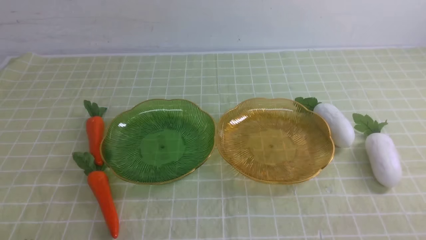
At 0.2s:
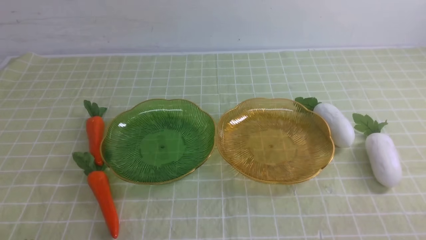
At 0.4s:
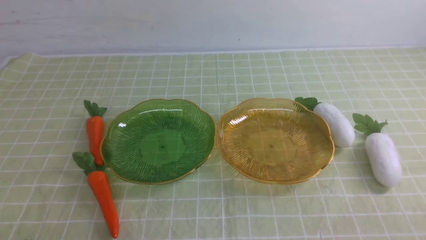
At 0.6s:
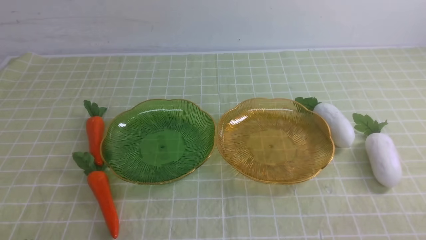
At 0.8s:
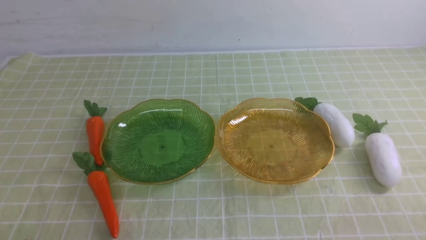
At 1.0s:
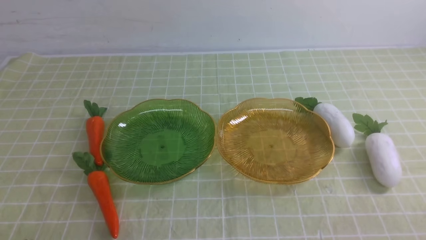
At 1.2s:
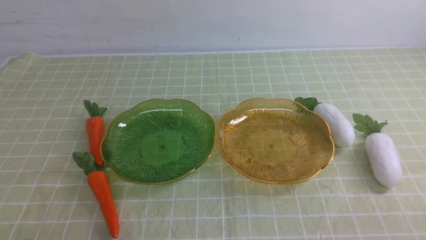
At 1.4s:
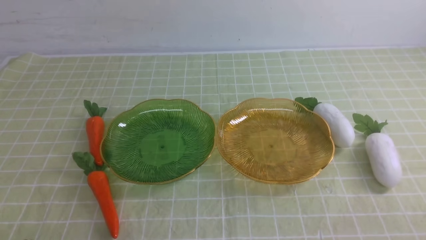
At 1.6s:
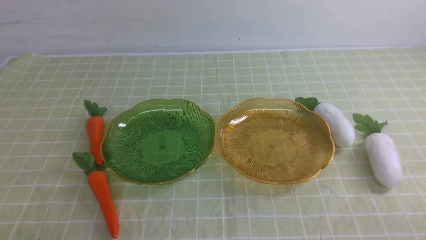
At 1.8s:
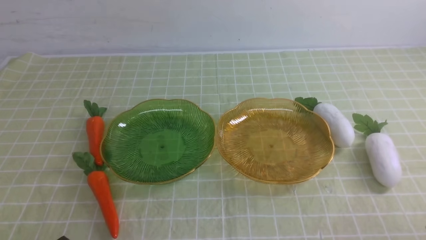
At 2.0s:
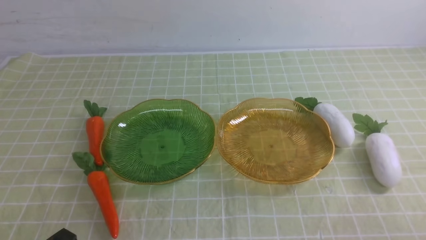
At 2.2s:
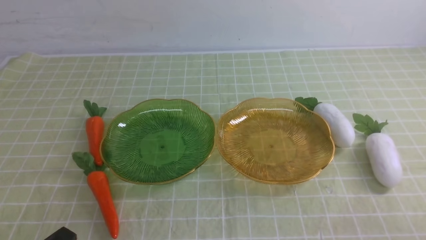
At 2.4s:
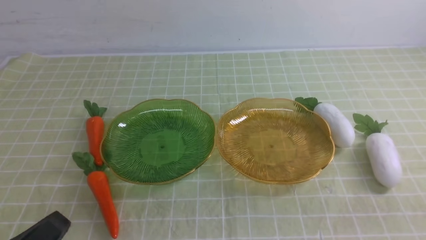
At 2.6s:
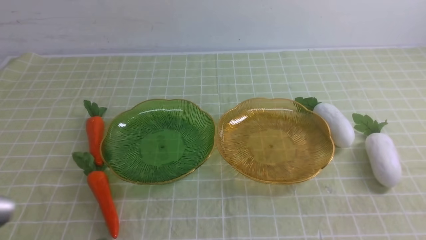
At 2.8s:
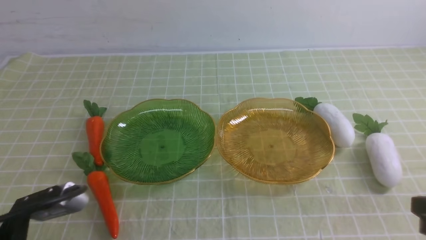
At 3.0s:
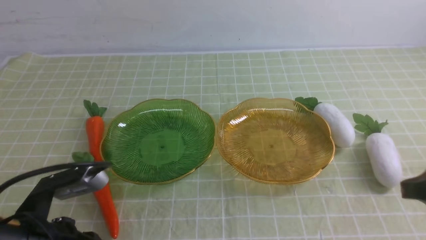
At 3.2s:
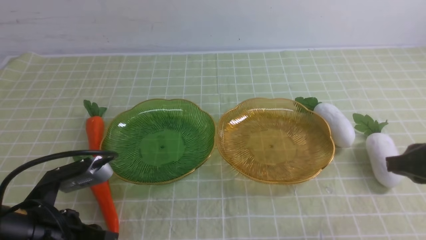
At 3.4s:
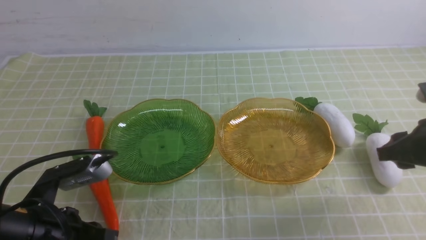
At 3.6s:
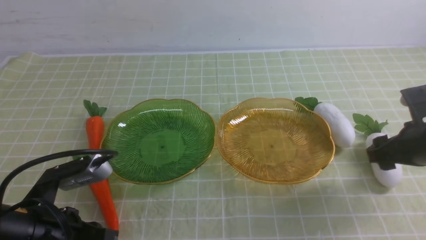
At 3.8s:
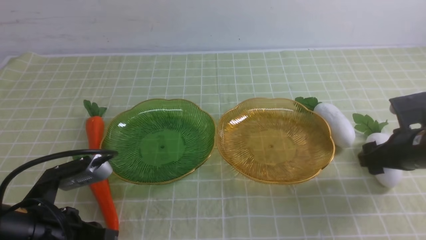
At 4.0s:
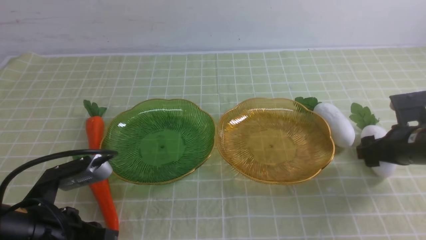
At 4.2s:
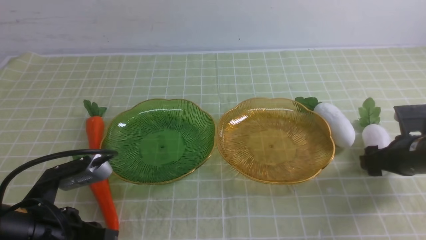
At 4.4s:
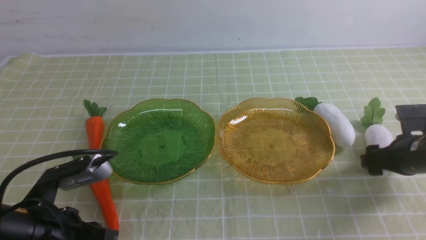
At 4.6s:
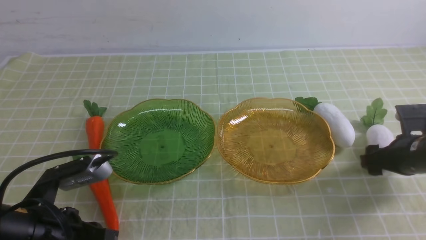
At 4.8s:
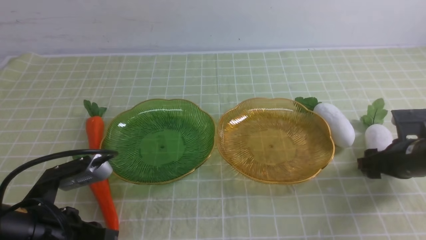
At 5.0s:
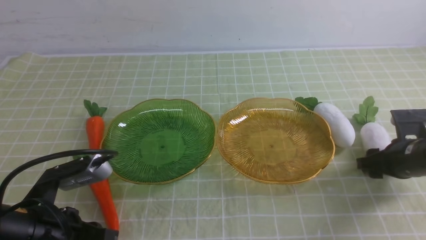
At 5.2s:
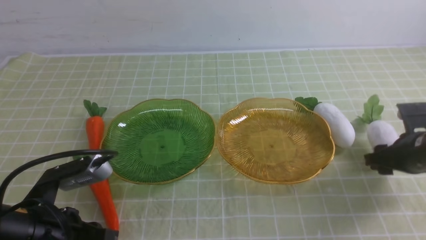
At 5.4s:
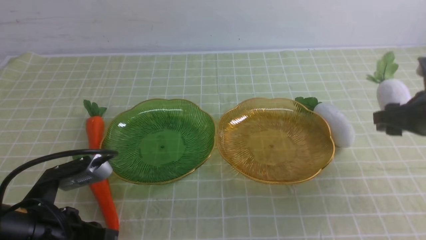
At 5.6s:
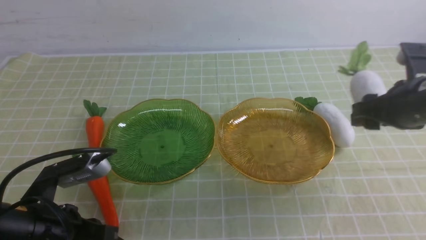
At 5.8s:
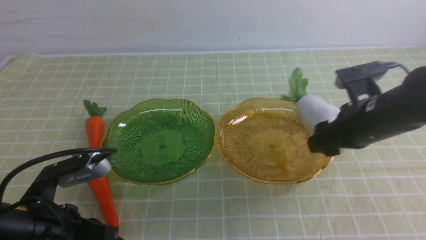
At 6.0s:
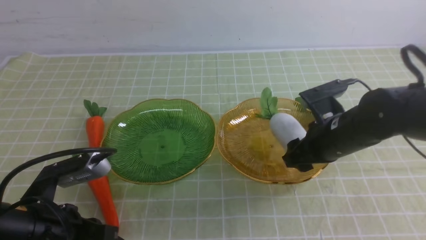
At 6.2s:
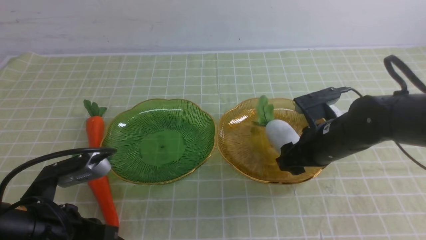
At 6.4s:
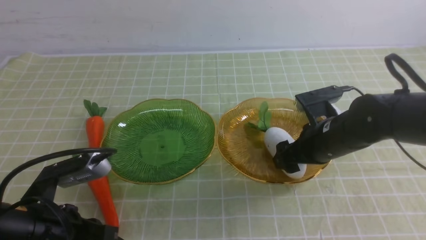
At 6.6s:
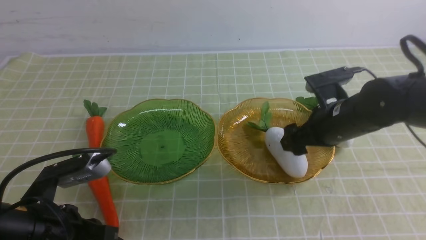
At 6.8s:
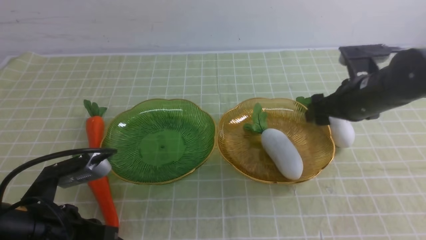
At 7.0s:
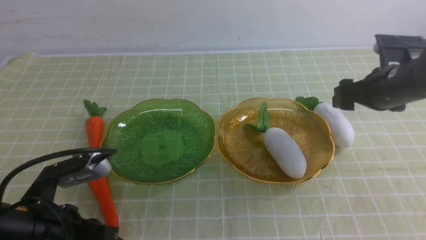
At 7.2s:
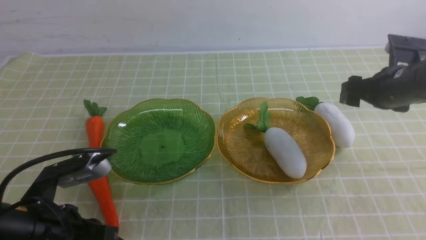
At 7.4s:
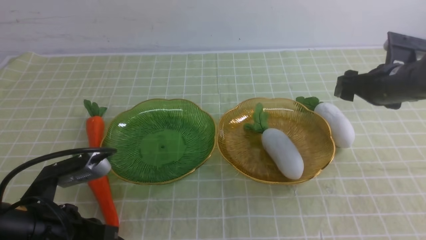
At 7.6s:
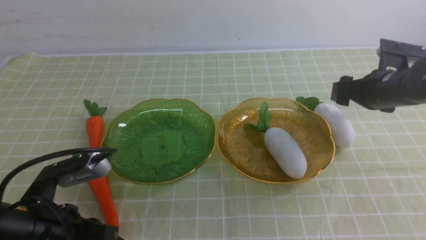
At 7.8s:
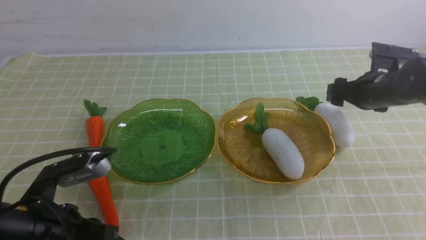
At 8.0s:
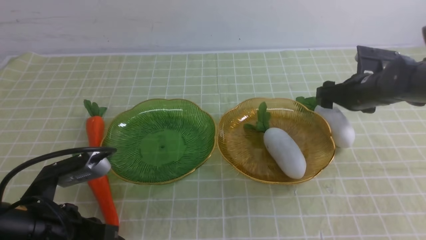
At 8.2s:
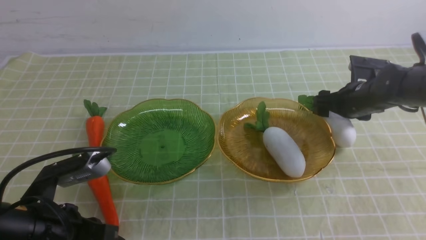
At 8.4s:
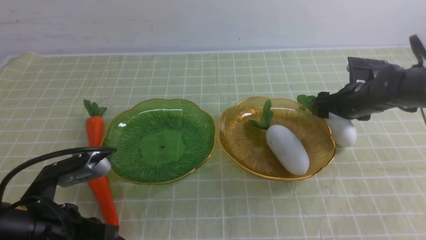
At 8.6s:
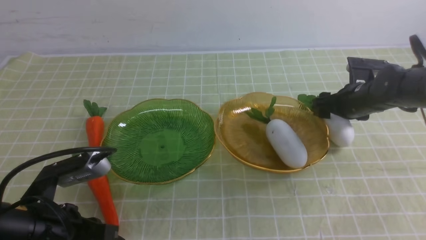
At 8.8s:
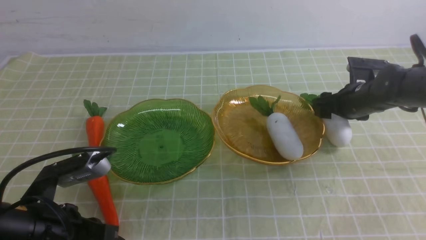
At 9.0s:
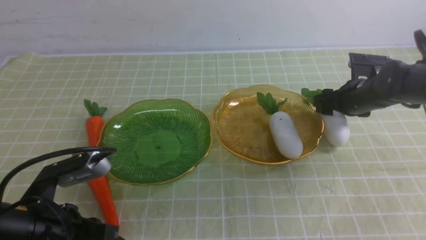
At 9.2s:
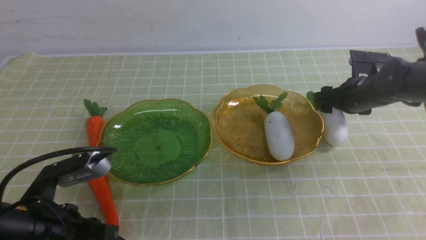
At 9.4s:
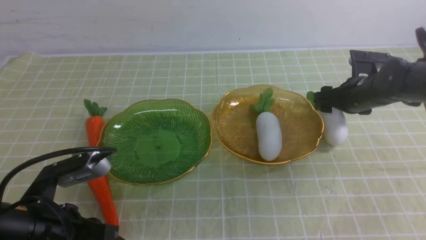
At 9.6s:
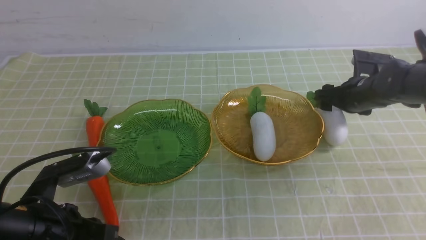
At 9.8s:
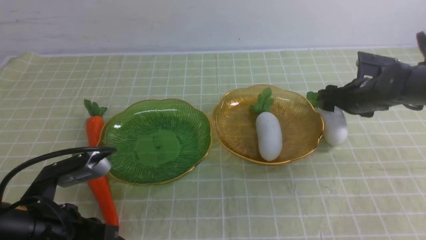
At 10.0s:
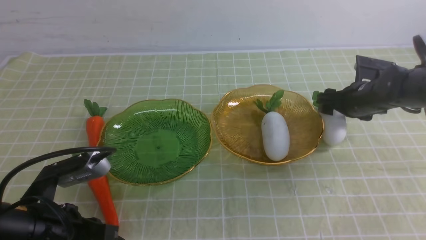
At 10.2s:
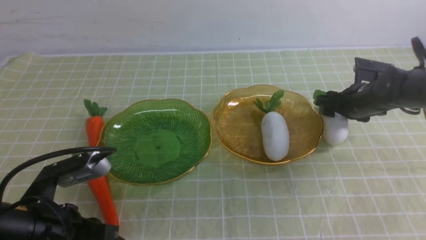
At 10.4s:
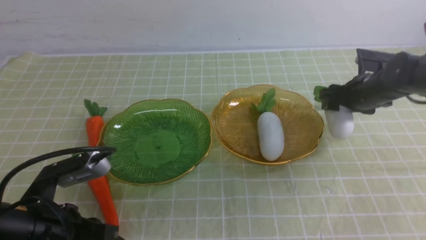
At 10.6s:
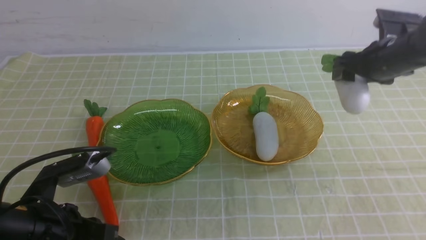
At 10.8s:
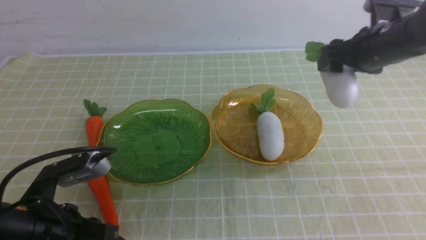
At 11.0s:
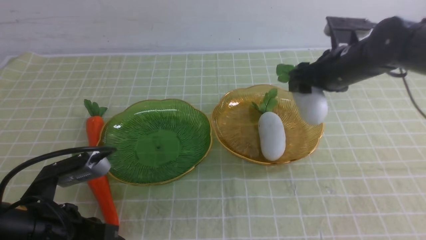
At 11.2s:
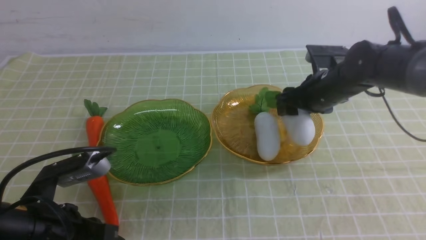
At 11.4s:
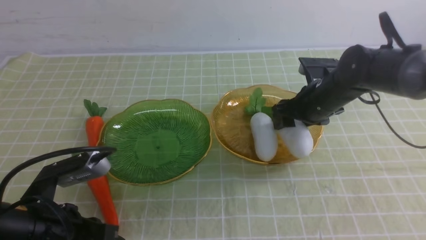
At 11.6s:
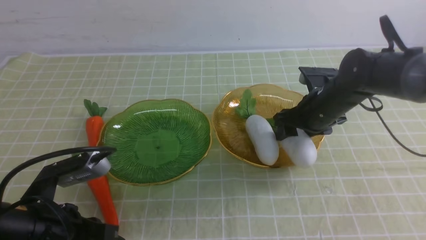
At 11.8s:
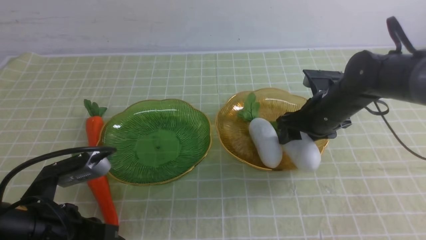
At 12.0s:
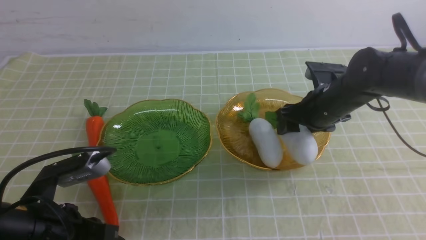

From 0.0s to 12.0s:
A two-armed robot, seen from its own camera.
From 1.6s to 3.0s: The right gripper moves forward and upward, approximately 15 cm; the left gripper shifts about 10 cm forward and upward.
From 3.0s to 4.4s: The right gripper heads forward and downward, covering about 15 cm, and opens.
From 4.4s to 6.0s: The right gripper heads to the left and upward, covering some 15 cm.
From 6.0s to 7.6s: The right gripper heads to the right and forward, covering approximately 15 cm.
From 7.6s to 9.0s: The right gripper ends up roughly 5 cm from where it was.
From 9.0s to 10.4s: The grippers stay close to where they were, moving slightly.
From 10.4s to 12.0s: The right gripper heads to the left, covering approximately 10 cm.

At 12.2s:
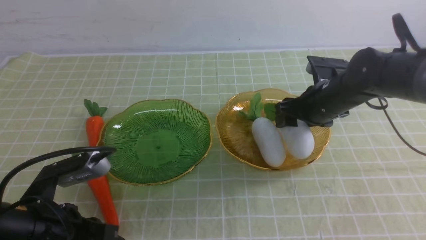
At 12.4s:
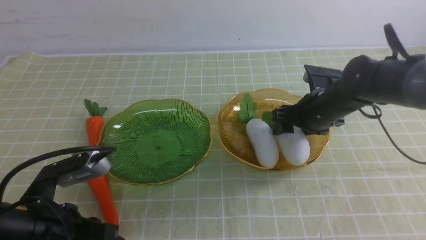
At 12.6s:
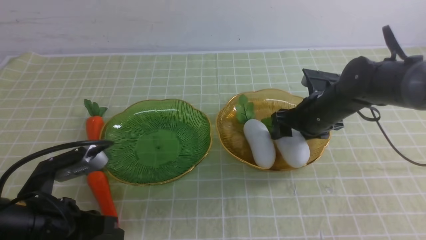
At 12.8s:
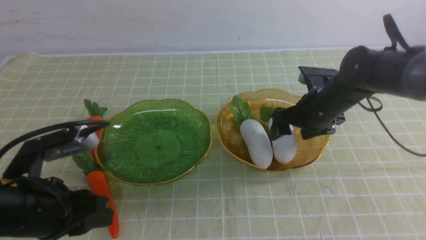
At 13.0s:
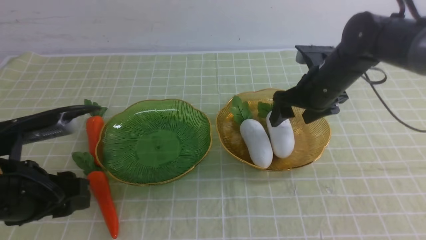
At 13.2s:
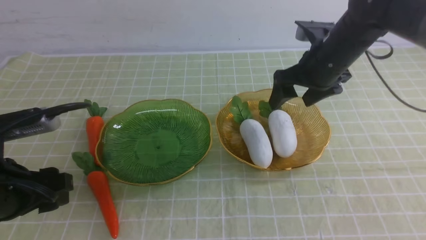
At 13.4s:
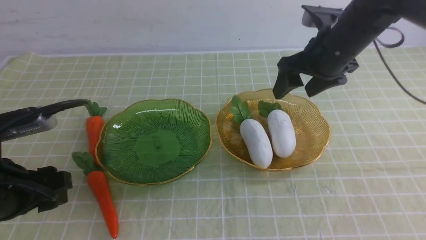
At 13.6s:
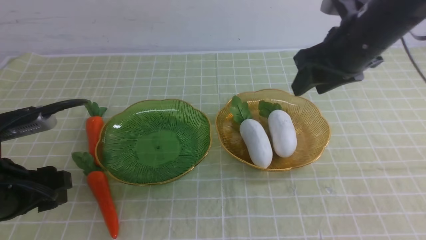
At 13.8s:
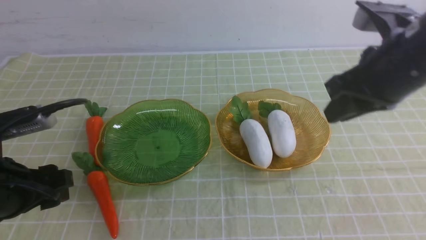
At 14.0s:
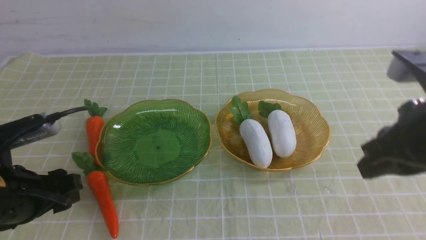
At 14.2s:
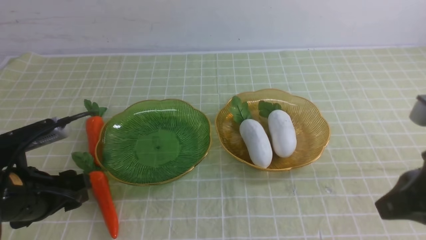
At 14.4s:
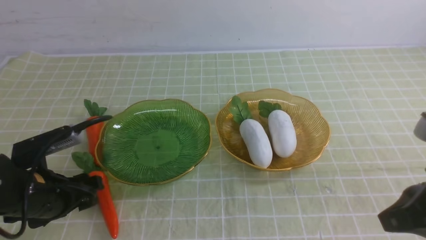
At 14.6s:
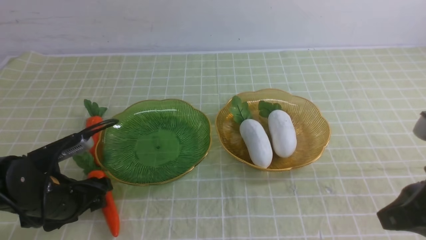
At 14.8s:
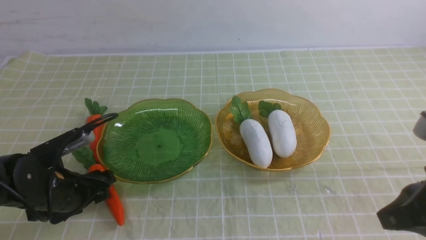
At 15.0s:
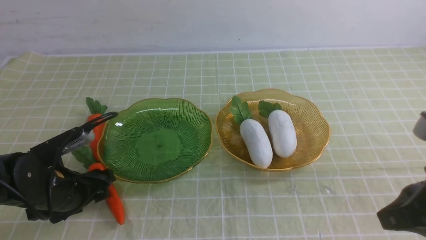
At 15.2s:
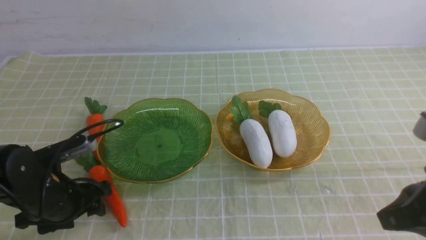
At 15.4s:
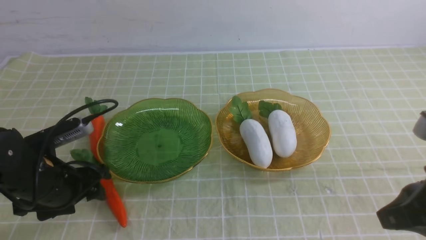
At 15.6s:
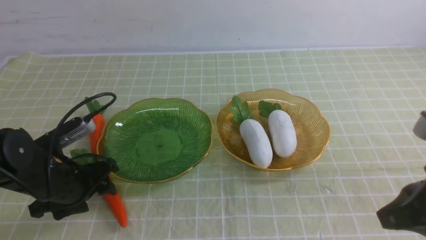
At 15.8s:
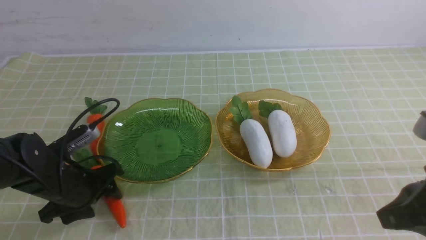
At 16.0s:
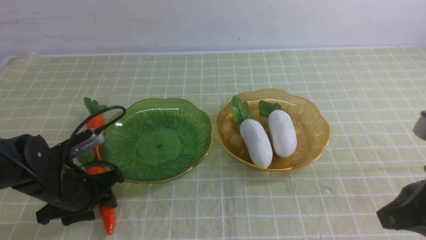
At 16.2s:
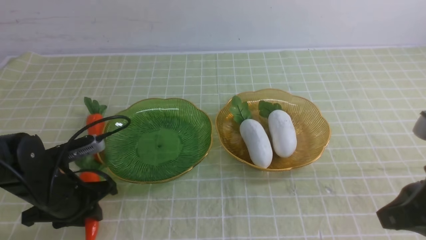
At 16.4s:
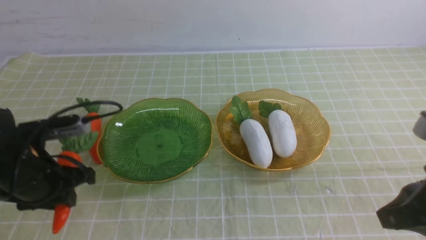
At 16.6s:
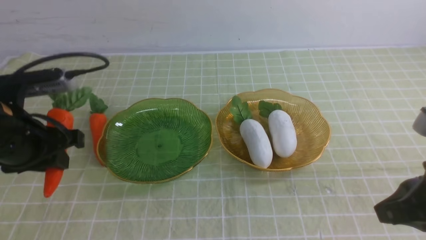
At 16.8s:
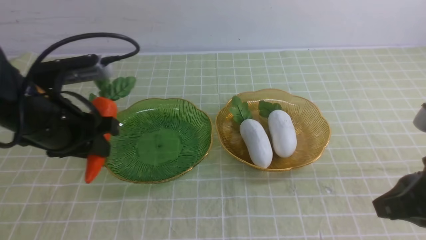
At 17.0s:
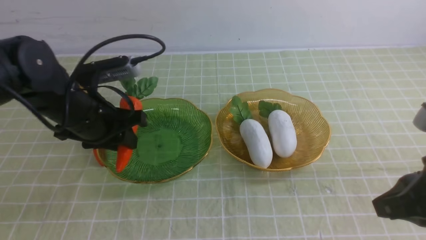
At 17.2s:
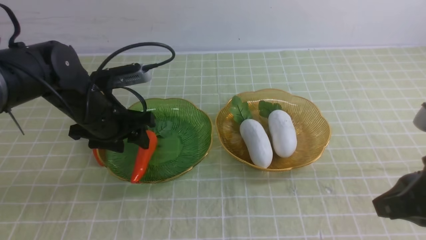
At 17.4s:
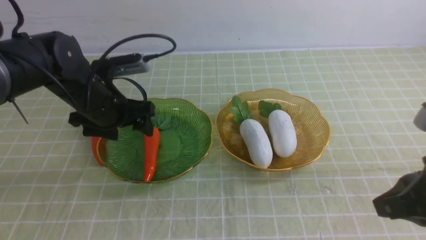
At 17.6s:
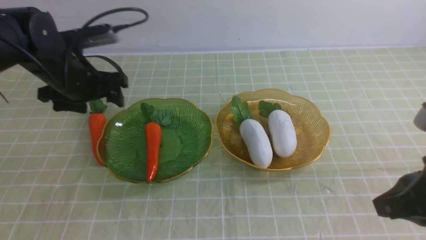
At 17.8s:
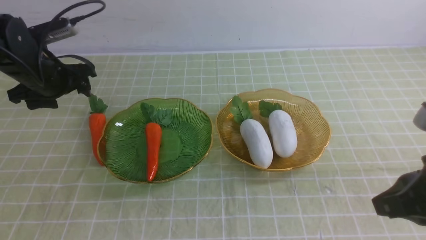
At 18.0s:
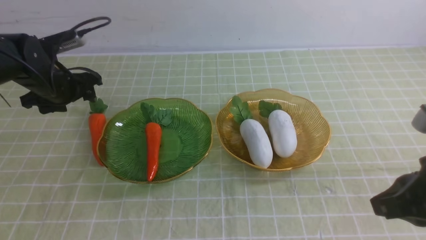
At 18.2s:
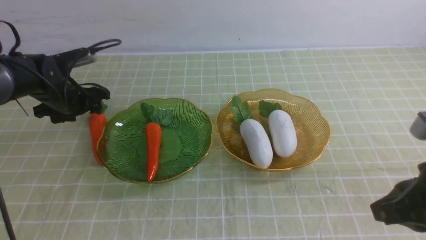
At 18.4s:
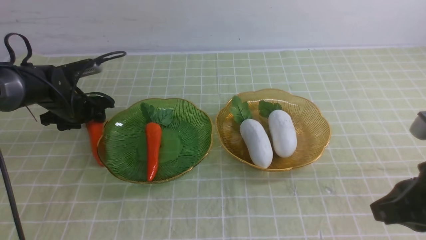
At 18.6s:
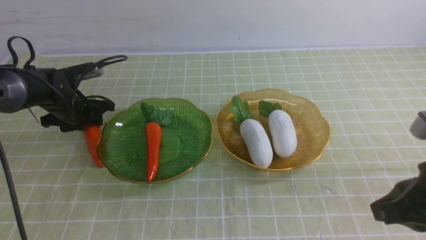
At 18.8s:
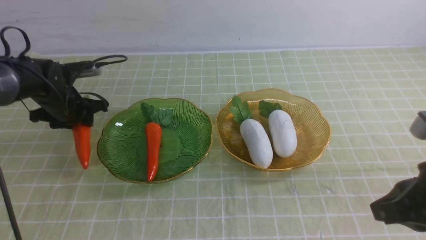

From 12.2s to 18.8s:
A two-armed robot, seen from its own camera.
From 12.2s to 13.8s: The left gripper ends up roughly 5 cm from where it was, and opens up. The right gripper travels upward and backward by some 20 cm, and closes its fingers.
From 13.8s to 15.4s: The right gripper goes some 10 cm backward, while the left gripper travels downward and forward by roughly 10 cm.
From 15.4s to 17.2s: The left gripper moves forward and upward, some 10 cm, and closes, then opens again.
From 17.2s to 18.8s: The left gripper travels to the left and forward by roughly 15 cm.
